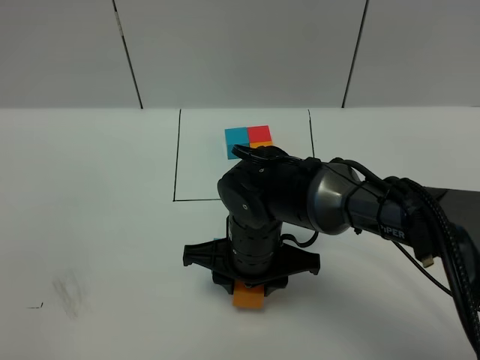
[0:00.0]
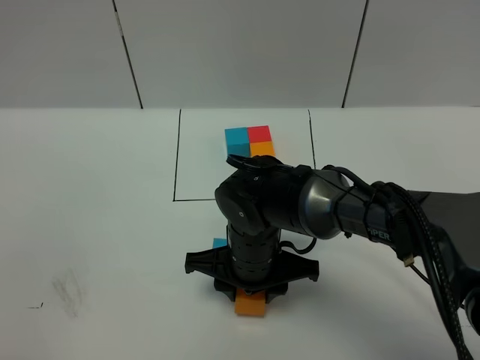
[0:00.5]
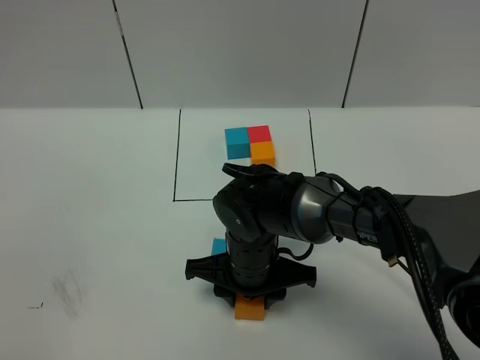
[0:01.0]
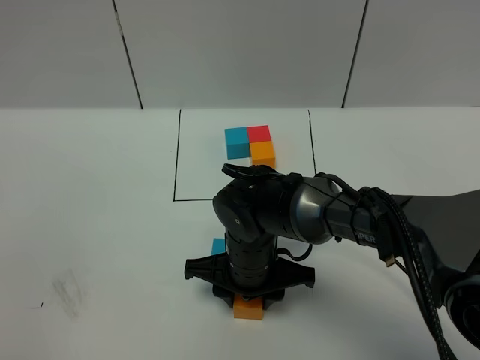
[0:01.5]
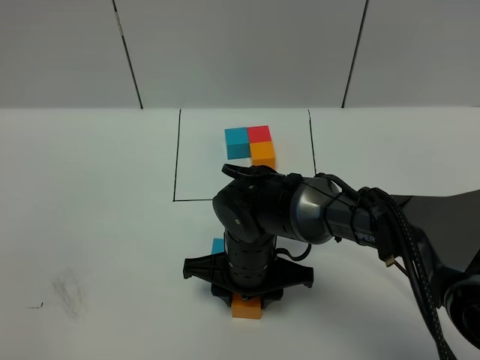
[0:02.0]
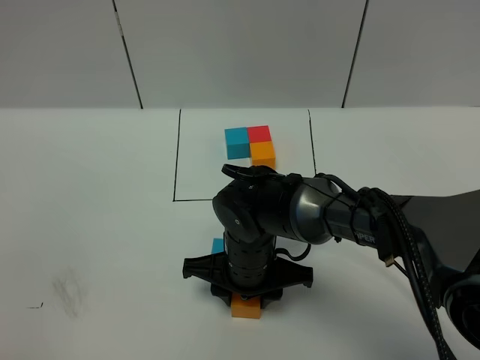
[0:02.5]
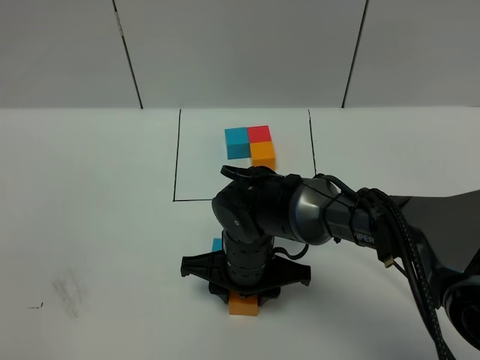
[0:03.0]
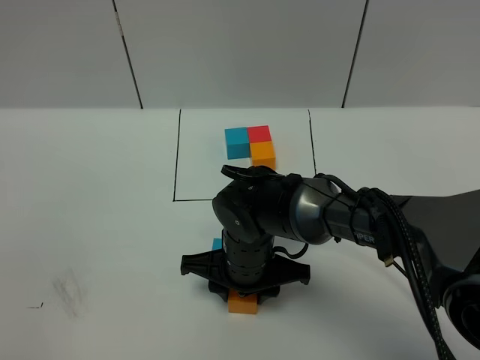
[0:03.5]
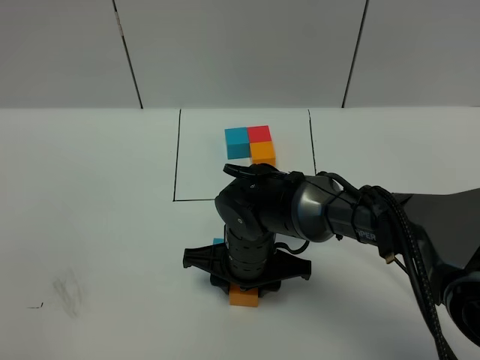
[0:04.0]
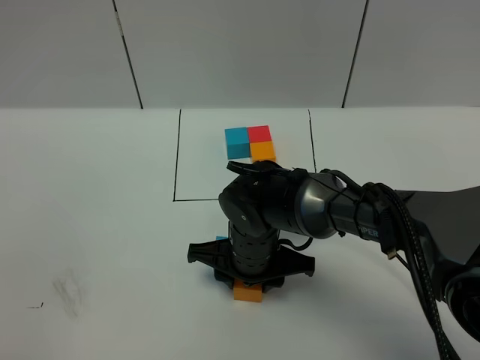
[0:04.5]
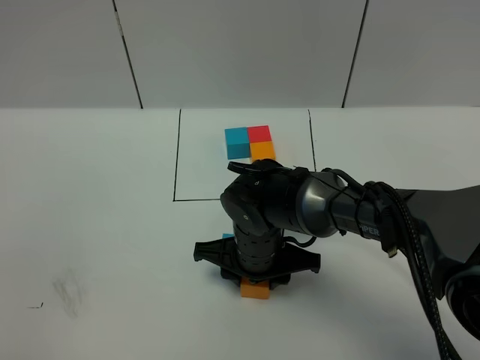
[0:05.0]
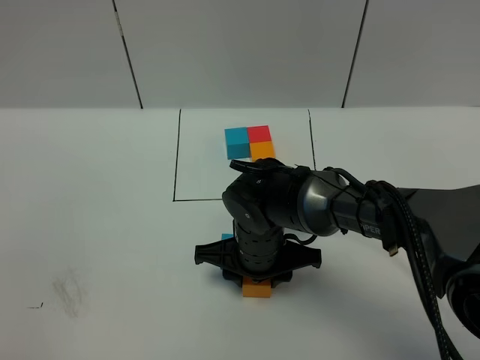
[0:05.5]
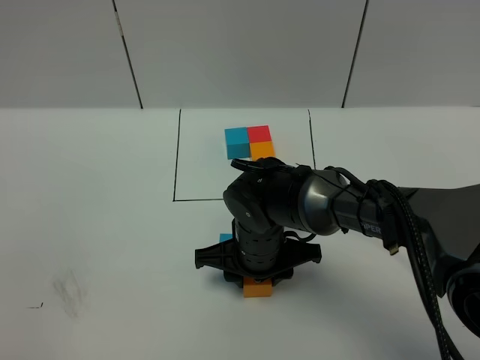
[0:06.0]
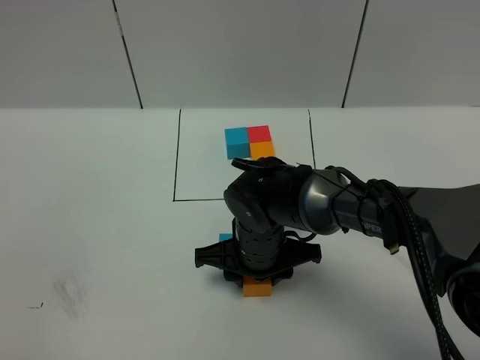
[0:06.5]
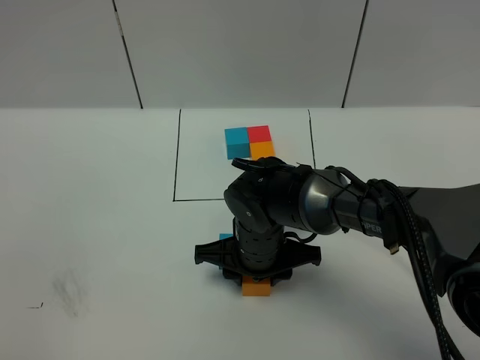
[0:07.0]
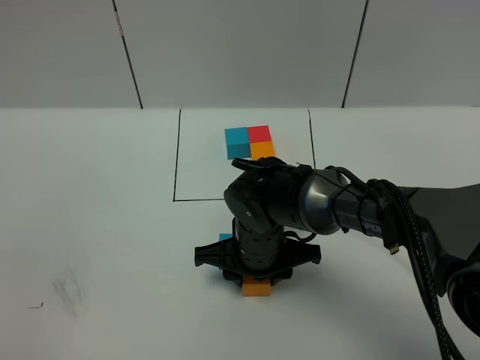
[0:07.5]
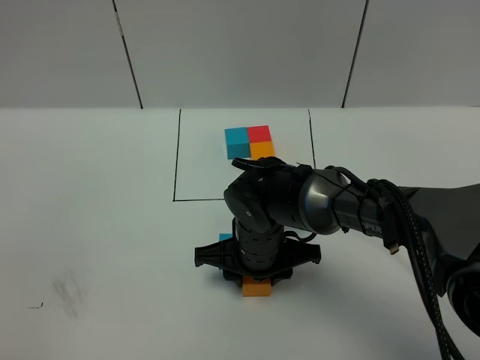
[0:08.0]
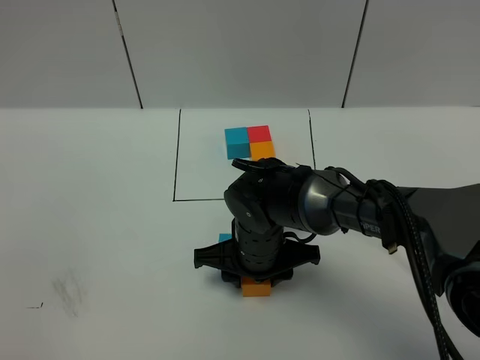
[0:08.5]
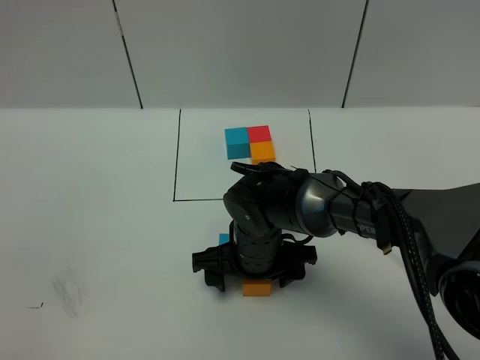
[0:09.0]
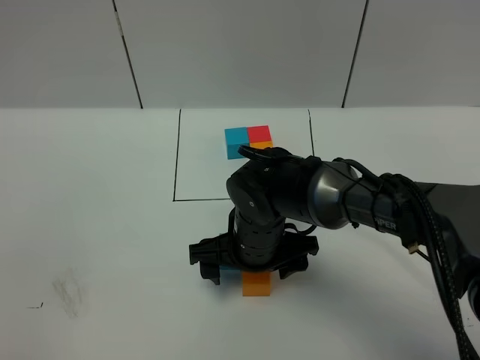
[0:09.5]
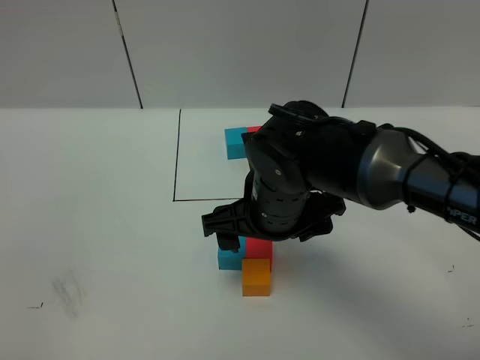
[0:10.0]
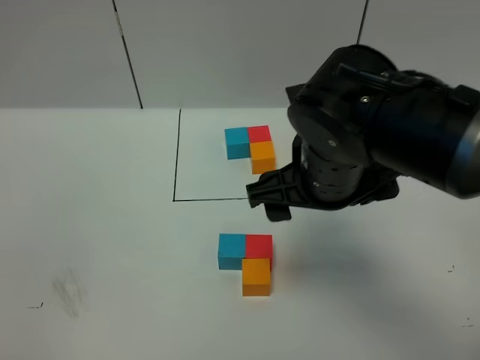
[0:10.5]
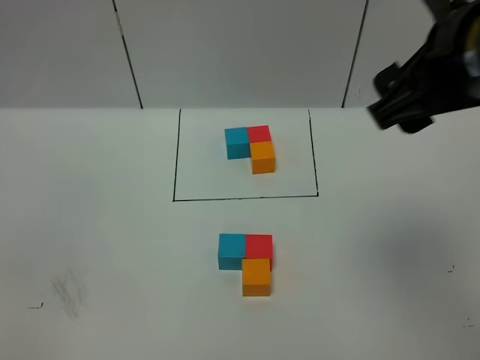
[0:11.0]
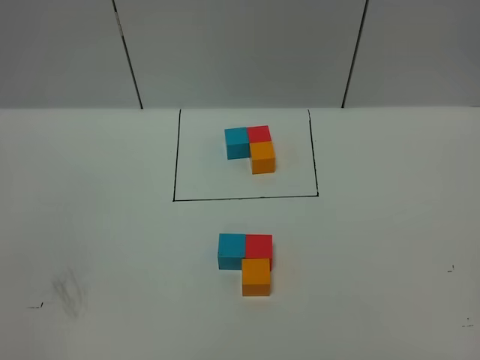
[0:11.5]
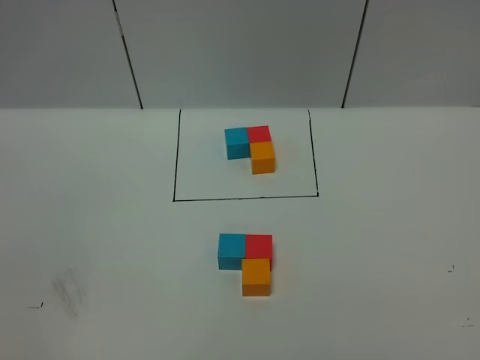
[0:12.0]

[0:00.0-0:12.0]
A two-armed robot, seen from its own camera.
Task of the whole recording: According to the building block template in front, assemble the scattered blocks together.
Step, 0:00.0 to 0:09.5: Put the orange cube in the front of the red cube.
0:00.0 to 0:02.0: The grippers stay close to where they were, moving slightly.
0:02.0 to 0:04.0: Neither gripper changes place.
0:04.0 to 0:06.0: The grippers stay close to where they were, moving slightly.
0:06.0 to 0:08.0: Neither gripper changes place.
0:08.0 to 0:10.0: The right gripper is displaced upward by about 10 cm, and opens its fingers.
0:10.0 to 0:12.0: The right gripper shifts roughly 50 cm to the right, backward and upward.

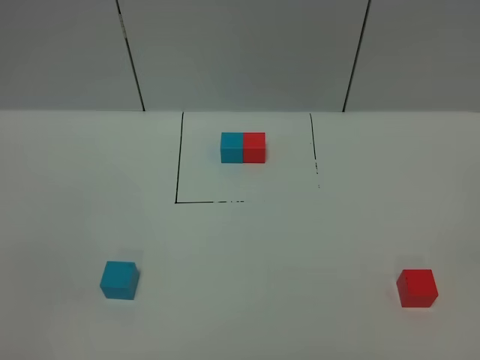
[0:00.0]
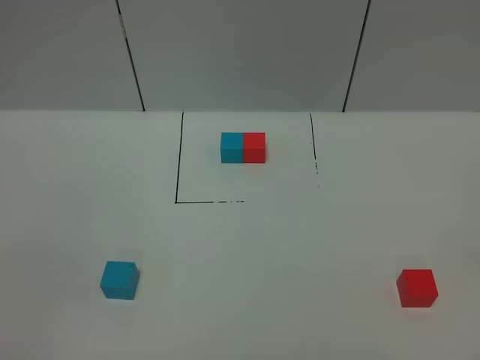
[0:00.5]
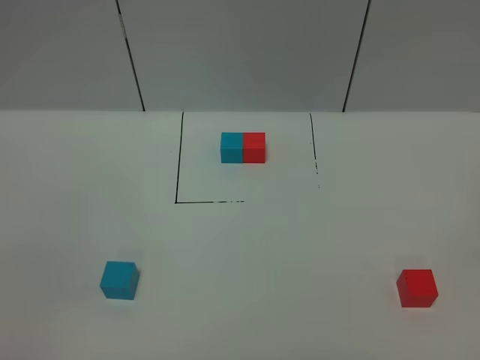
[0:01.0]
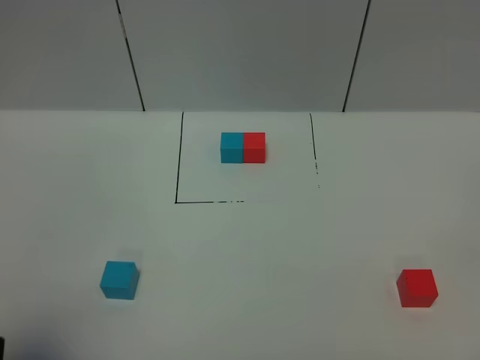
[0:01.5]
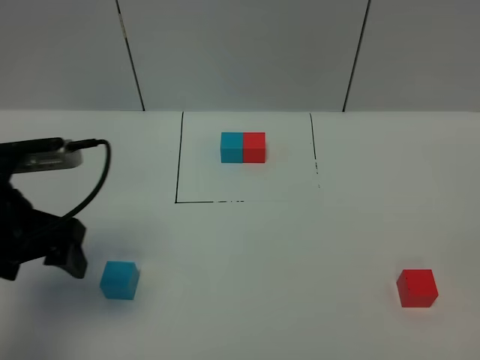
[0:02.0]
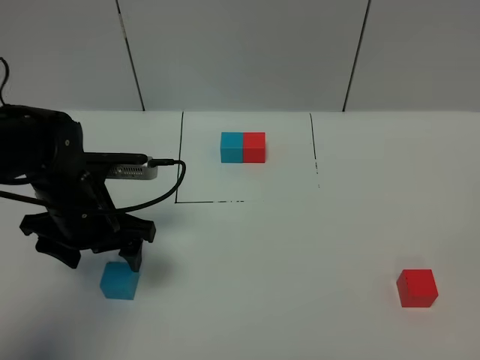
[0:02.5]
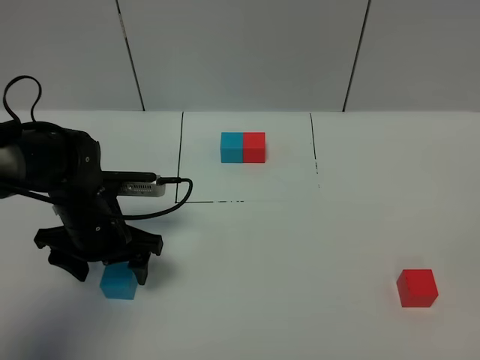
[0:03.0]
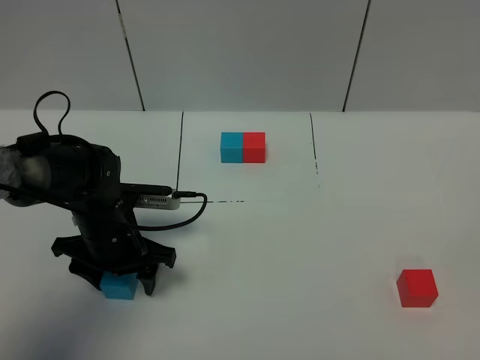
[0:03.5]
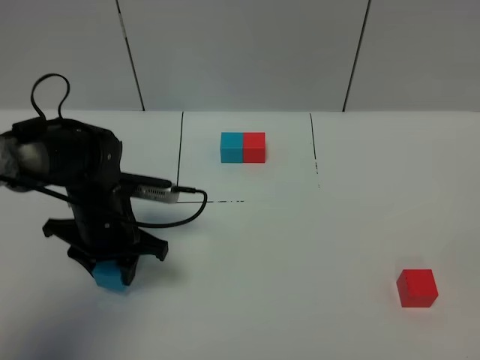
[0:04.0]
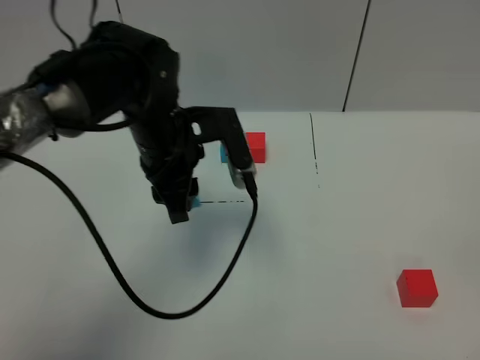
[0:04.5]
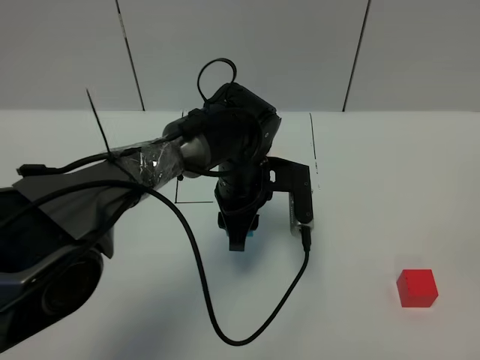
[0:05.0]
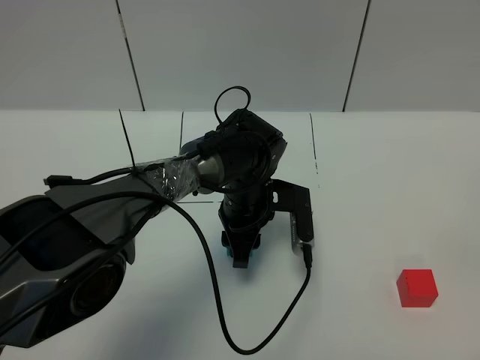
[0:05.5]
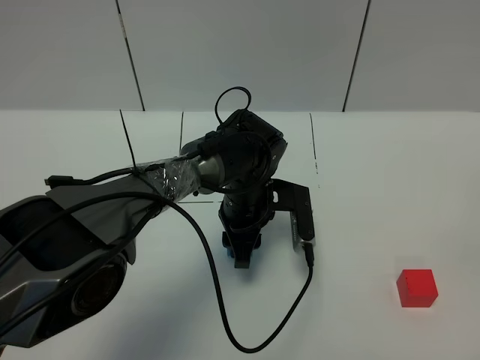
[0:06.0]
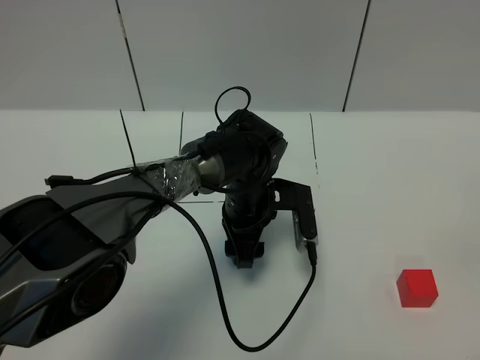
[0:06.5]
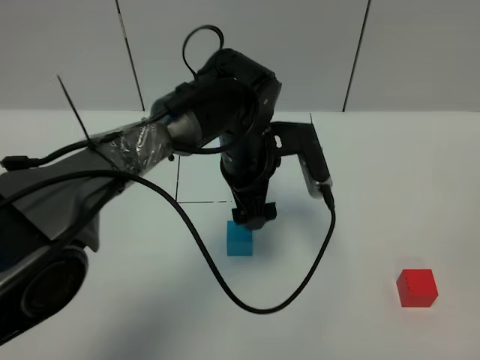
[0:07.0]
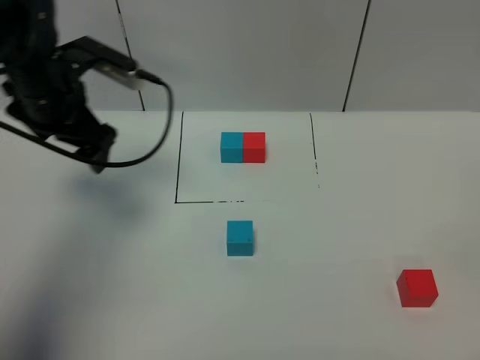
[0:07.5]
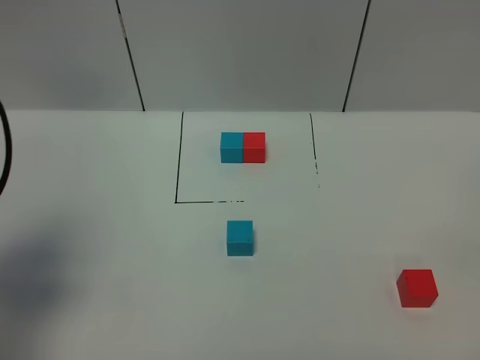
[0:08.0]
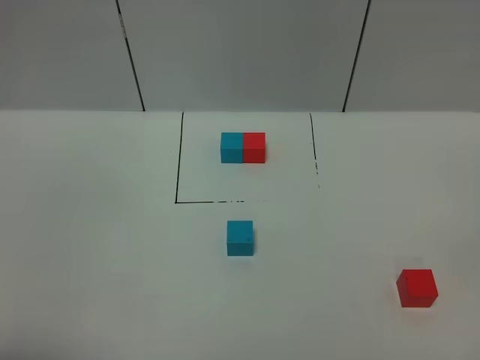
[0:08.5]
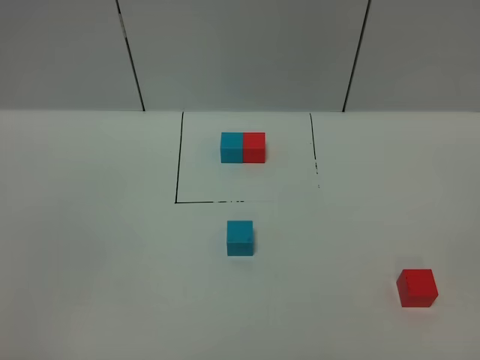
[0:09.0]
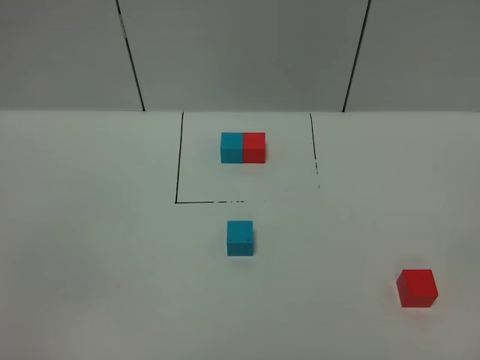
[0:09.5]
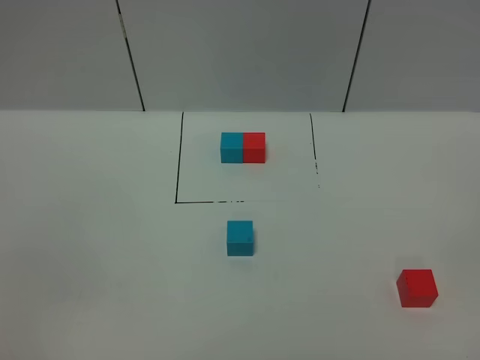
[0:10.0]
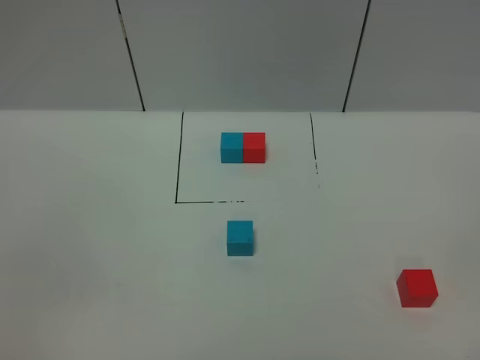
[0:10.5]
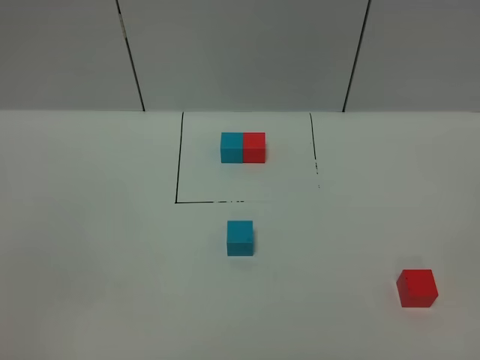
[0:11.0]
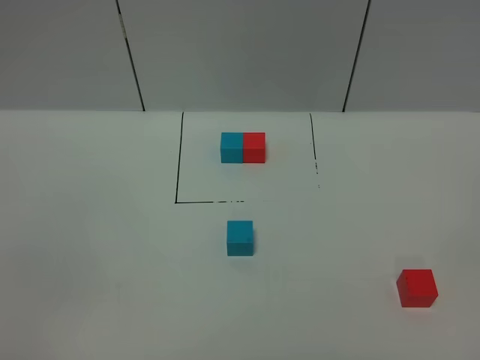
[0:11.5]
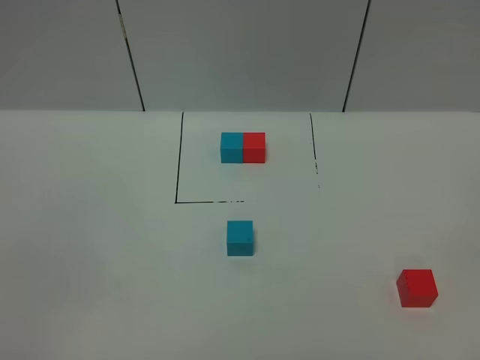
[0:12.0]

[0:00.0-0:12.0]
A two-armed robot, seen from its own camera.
Task of the whole recording: According to the building block template in front, assemble the scattered blocks together.
Step, 0:01.5 to 0:07.0: Put the blue cube in the center of the table.
0:00.0 to 0:02.0: The left gripper shifts some 30 cm forward.
0:02.0 to 0:04.0: The left gripper moves downward, forward and to the right, approximately 15 cm, and closes.
0:04.0 to 0:06.0: The left gripper shifts about 20 cm to the right.
0:06.0 to 0:08.0: The left gripper moves to the left, upward and backward, roughly 40 cm, and opens up.
0:08.0 to 0:10.0: The left gripper goes roughly 25 cm backward.
0:10.0 to 0:12.0: The two grippers keep their place.

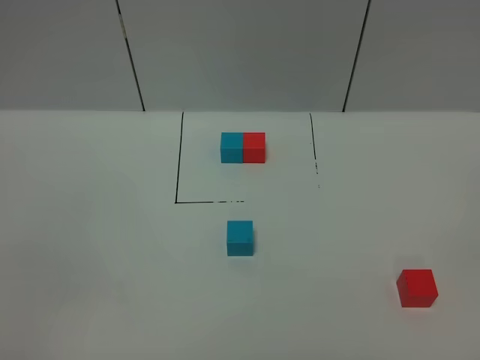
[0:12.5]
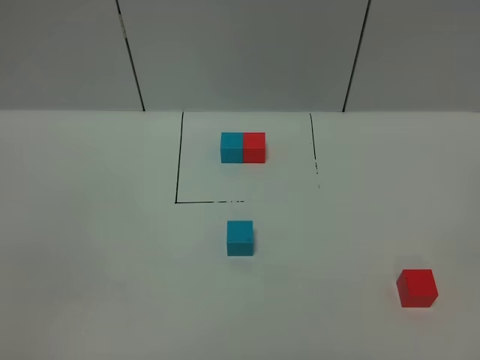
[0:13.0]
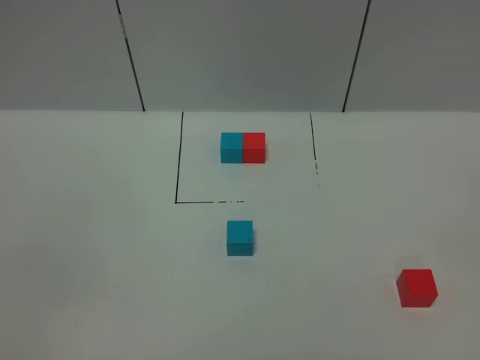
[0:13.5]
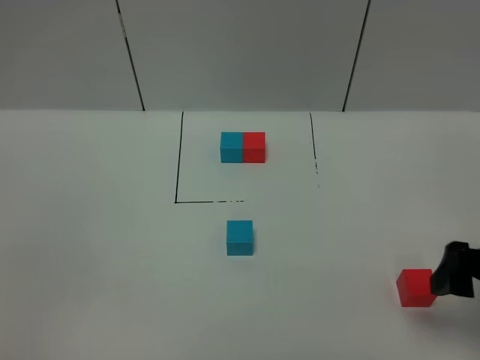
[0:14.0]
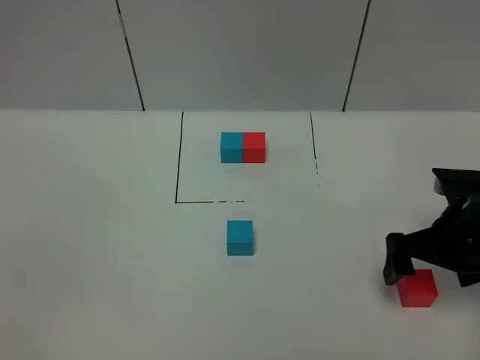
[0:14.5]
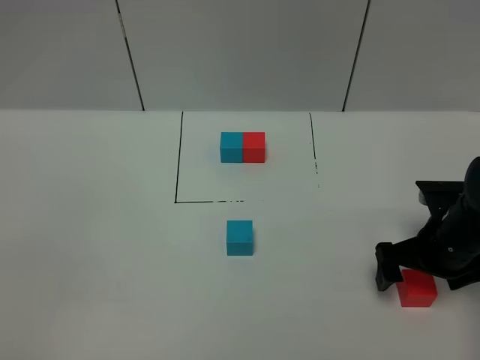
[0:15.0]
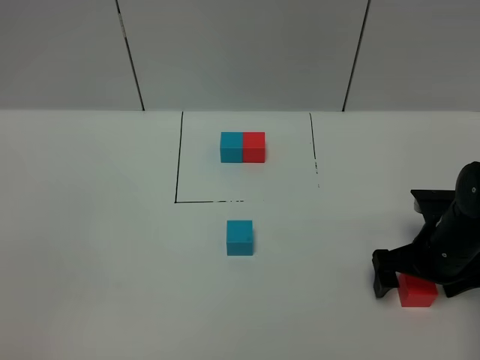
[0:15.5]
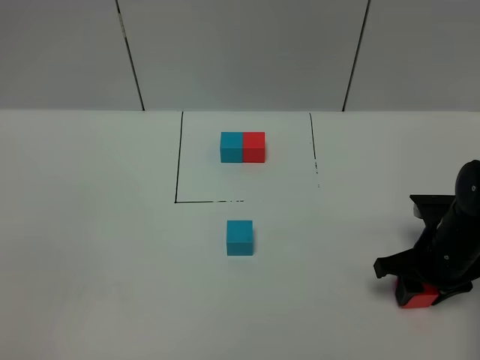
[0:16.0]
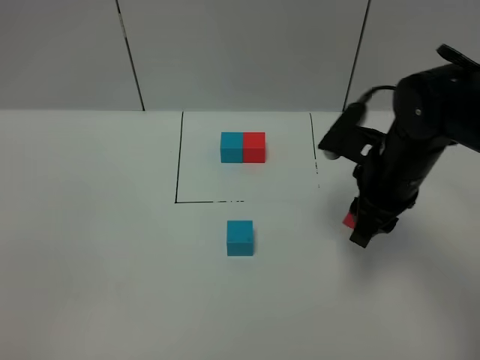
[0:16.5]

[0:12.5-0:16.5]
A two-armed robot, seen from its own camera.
Task of the whole recording: According to the building block template in front, assemble the scattered blocks together.
0:12.5 to 0:14.5: The right gripper goes some 30 cm forward.
0:14.5 to 0:16.5: The right gripper heads to the left and upward, covering roughly 10 cm, and closes up.
